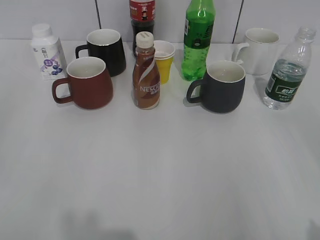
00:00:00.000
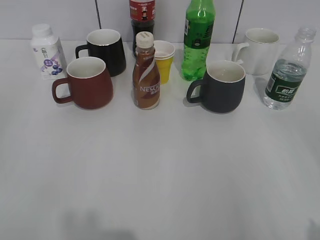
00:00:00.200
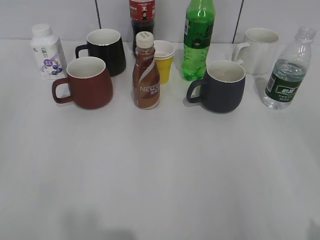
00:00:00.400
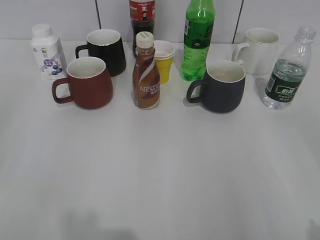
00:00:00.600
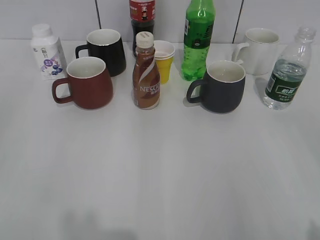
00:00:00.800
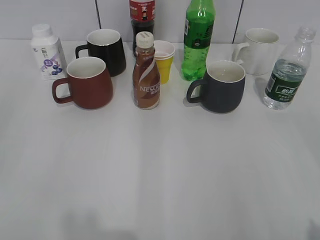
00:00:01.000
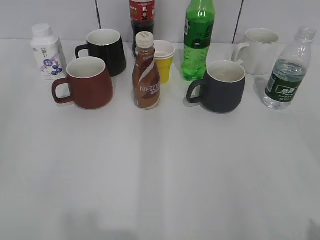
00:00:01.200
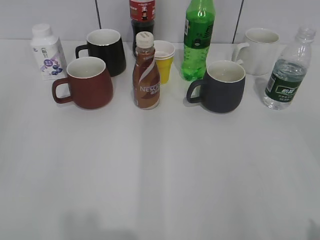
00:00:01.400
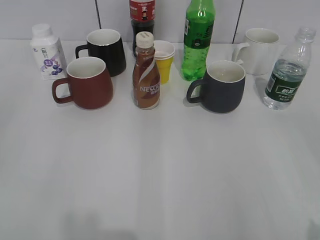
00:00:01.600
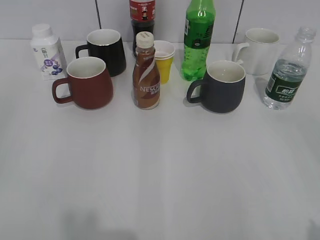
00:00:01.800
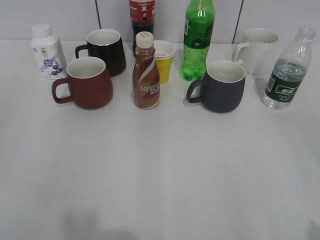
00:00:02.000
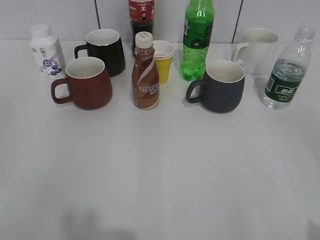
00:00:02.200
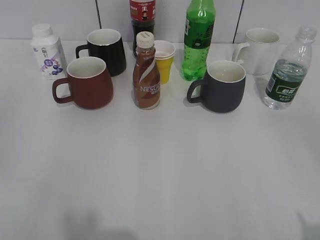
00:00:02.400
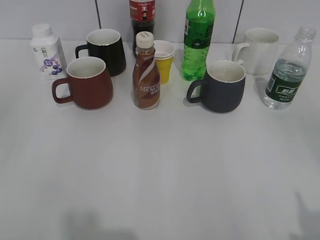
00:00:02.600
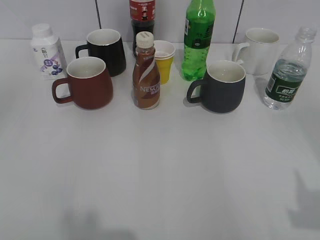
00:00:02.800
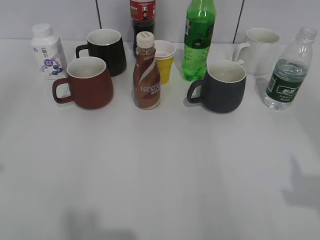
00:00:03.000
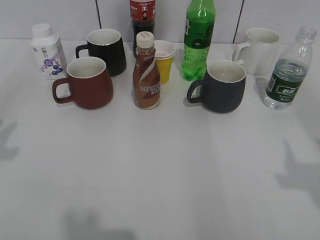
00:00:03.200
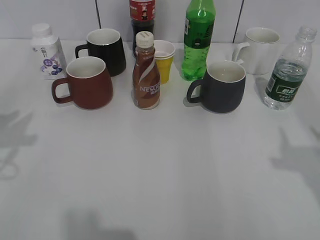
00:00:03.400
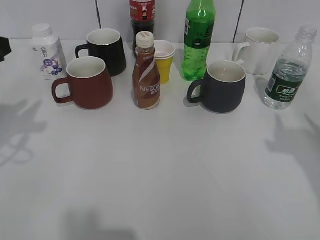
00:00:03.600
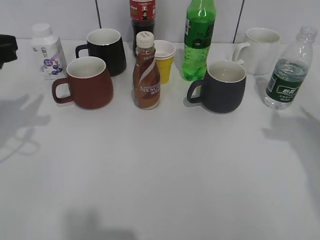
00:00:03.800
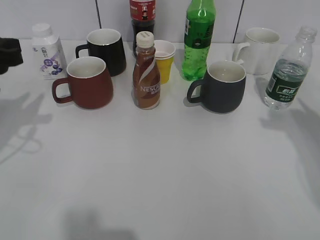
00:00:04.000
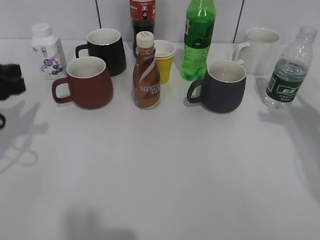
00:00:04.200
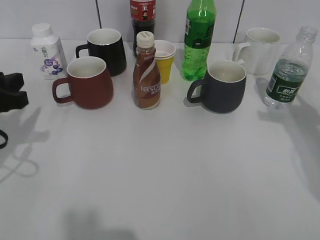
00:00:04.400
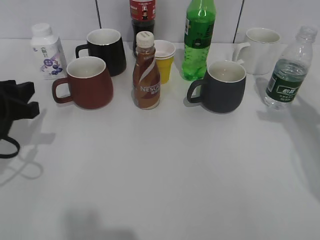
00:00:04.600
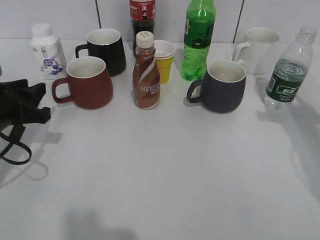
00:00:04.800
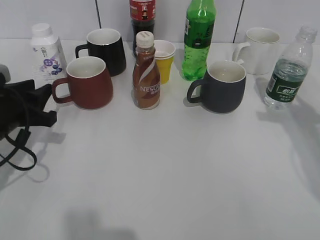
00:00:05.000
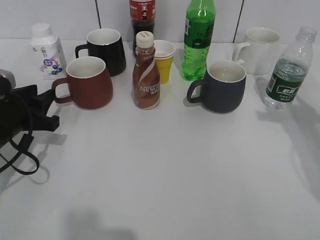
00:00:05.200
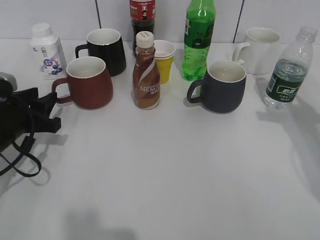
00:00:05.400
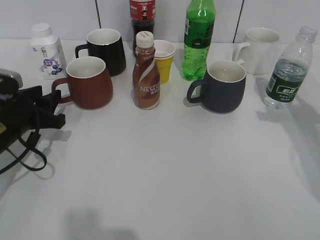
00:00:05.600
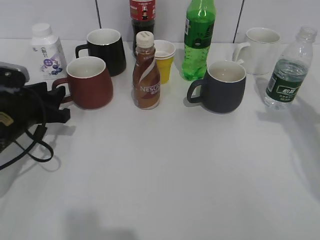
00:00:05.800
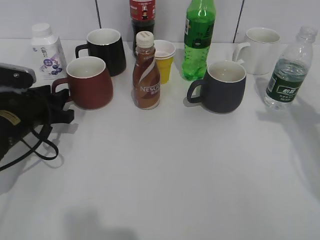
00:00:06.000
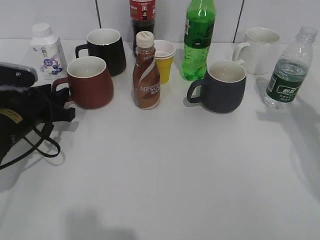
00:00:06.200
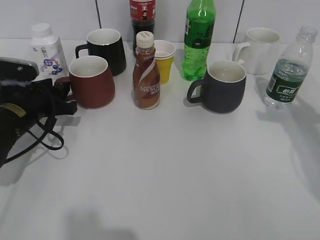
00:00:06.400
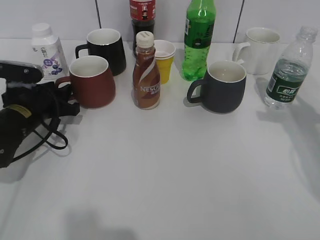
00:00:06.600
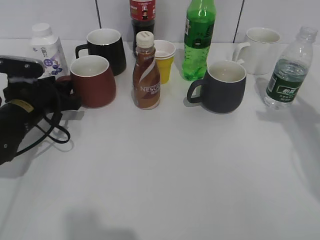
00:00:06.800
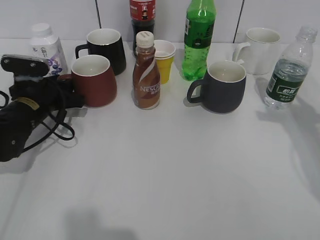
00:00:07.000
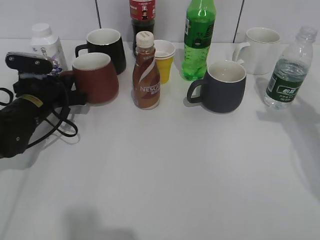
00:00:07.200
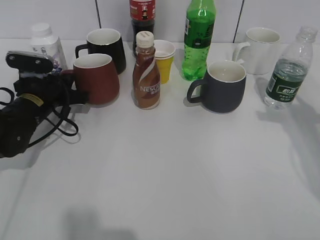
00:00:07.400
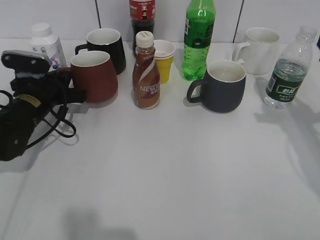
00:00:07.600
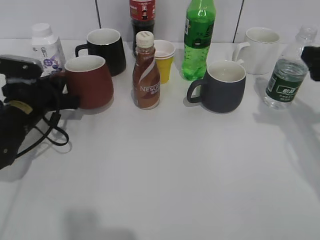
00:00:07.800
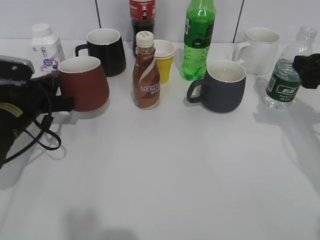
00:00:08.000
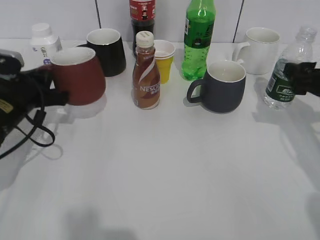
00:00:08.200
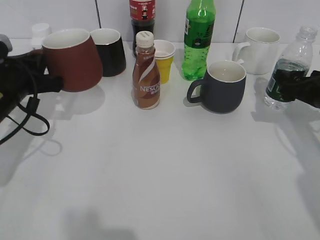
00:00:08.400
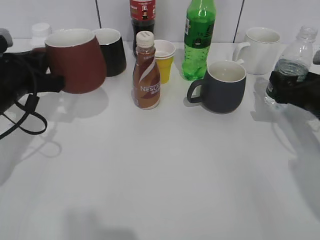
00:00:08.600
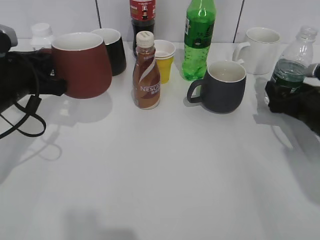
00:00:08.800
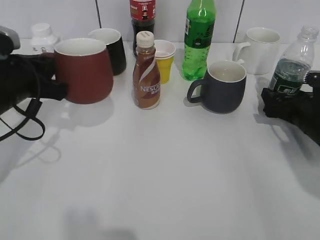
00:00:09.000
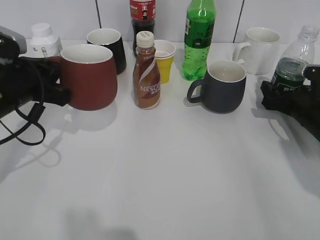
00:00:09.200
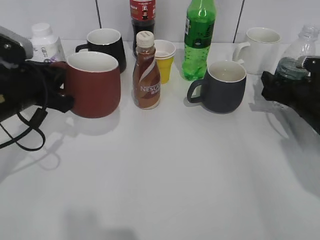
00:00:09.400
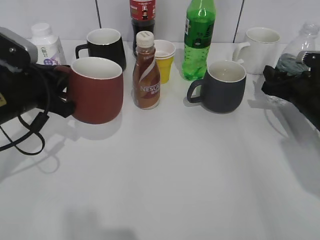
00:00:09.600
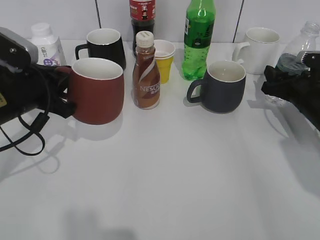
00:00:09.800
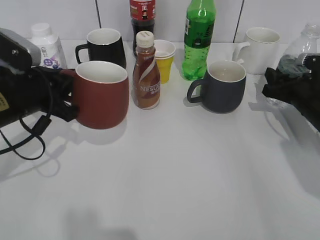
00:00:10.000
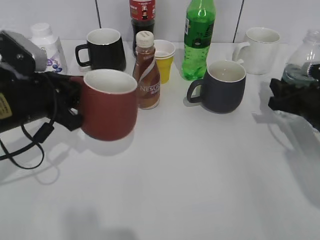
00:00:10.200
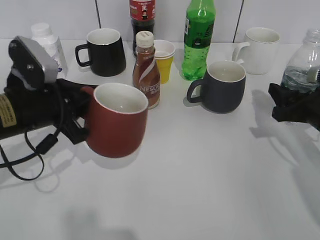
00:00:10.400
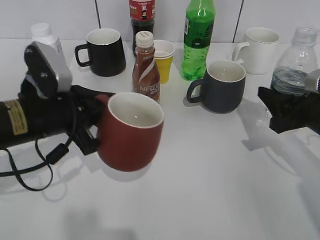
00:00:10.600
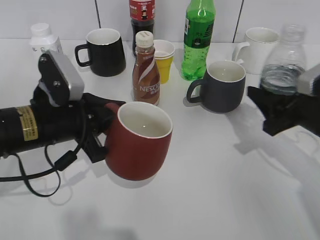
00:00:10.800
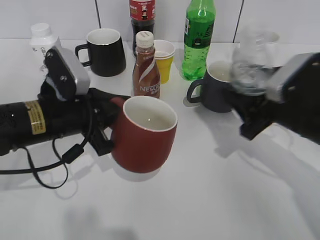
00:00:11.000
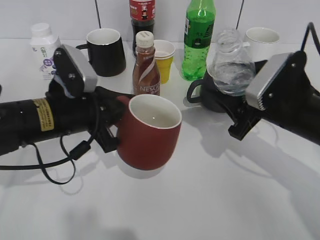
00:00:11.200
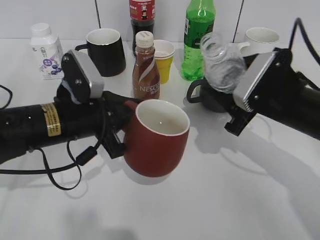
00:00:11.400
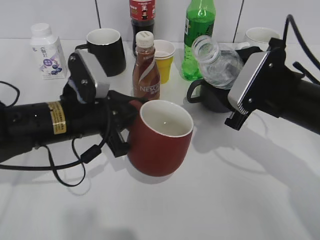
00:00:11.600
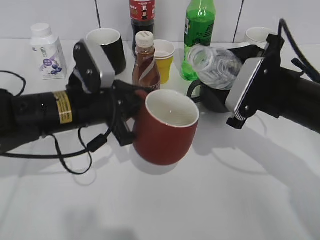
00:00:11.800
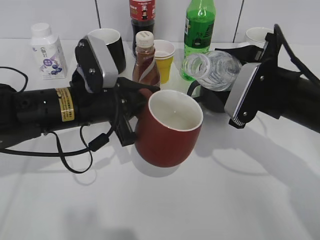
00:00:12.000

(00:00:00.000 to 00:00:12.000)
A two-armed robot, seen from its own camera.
Step, 00:00:02.000 - 00:00:07.000: Grasp the red cup with left gripper.
Step, 00:00:07.400 - 00:00:08.600: Lift the red cup with left gripper.
Step, 00:00:08.800 - 00:00:09.400: Grasp the bottle with water with right gripper.
00:00:01.600 - 00:00:03.000: The right gripper moves forward, approximately 5 cm.
00:00:03.000 - 00:00:04.400: The right gripper moves forward, approximately 20 cm. Meanwhile the left gripper moves downward and forward, roughly 20 cm.
00:00:04.400 - 00:00:06.000: The left gripper moves downward and forward, about 10 cm.
00:00:06.000 - 00:00:07.600: The left gripper moves some 5 cm, and closes.
00:00:07.600 - 00:00:09.000: The right gripper shifts approximately 15 cm downward, and opens. Meanwhile the left gripper goes roughly 10 cm upward and backward.
00:00:09.000 - 00:00:10.400: The right gripper goes approximately 5 cm upward, and closes its fingers.
00:00:10.400 - 00:00:12.000: The right gripper heads to the left, covering about 10 cm. The left gripper goes approximately 5 cm to the right.

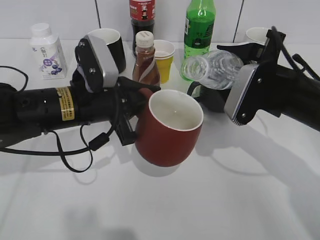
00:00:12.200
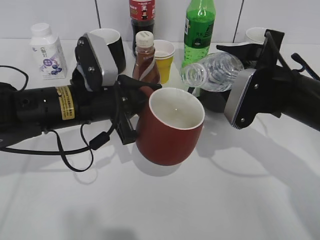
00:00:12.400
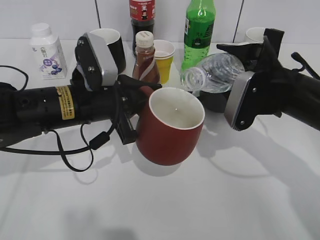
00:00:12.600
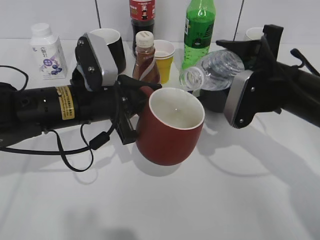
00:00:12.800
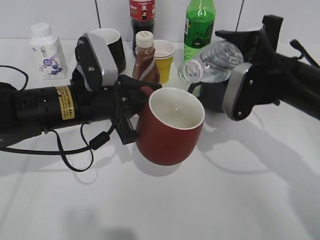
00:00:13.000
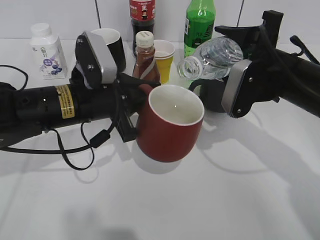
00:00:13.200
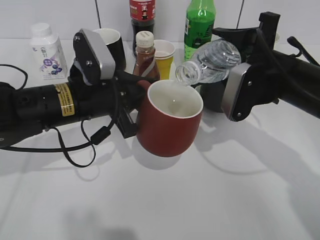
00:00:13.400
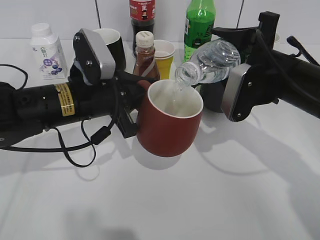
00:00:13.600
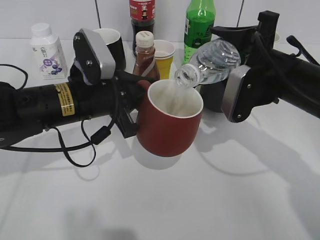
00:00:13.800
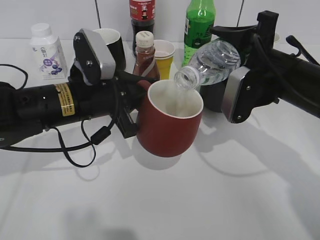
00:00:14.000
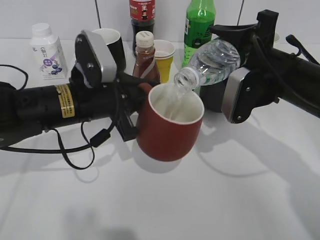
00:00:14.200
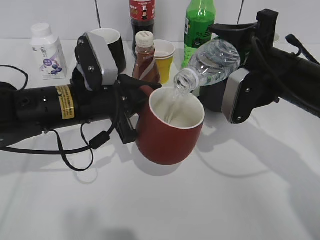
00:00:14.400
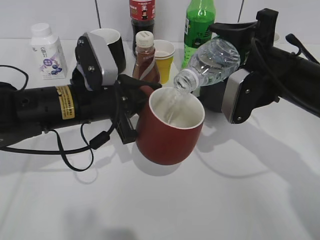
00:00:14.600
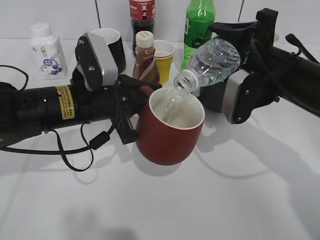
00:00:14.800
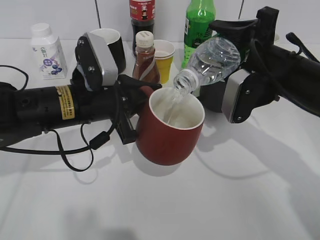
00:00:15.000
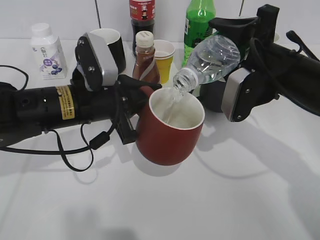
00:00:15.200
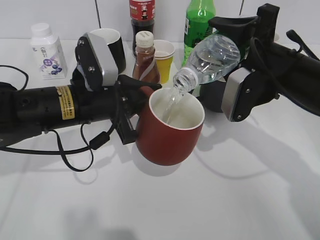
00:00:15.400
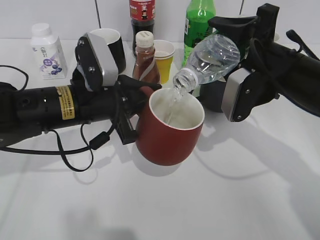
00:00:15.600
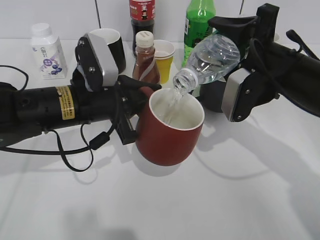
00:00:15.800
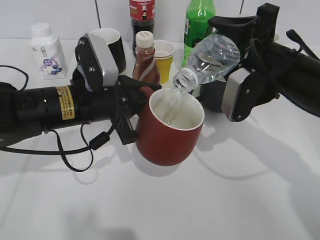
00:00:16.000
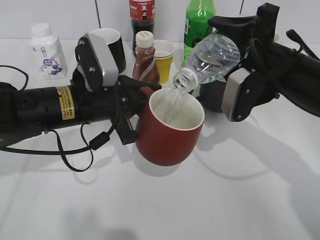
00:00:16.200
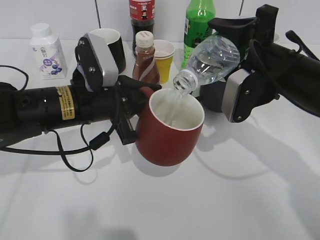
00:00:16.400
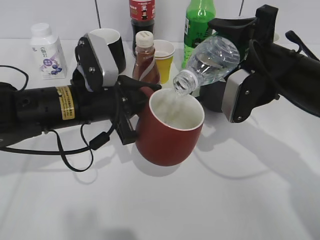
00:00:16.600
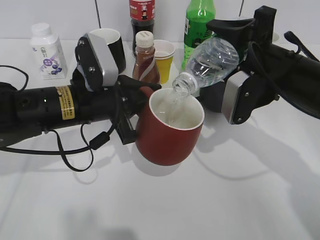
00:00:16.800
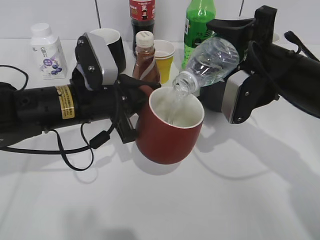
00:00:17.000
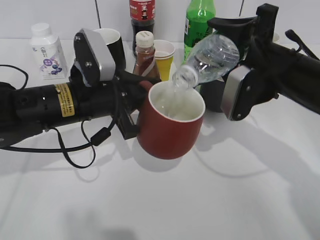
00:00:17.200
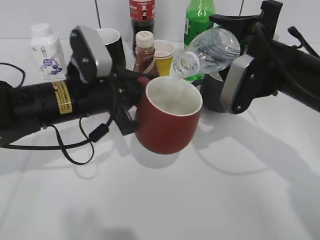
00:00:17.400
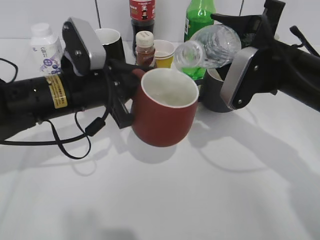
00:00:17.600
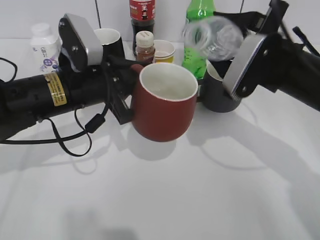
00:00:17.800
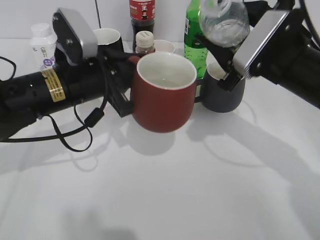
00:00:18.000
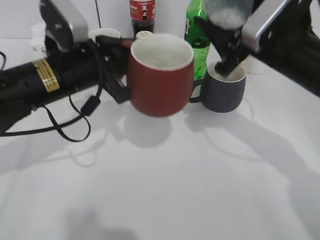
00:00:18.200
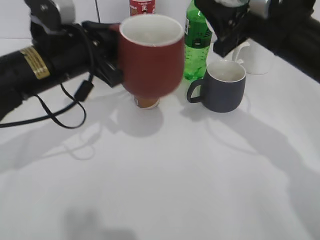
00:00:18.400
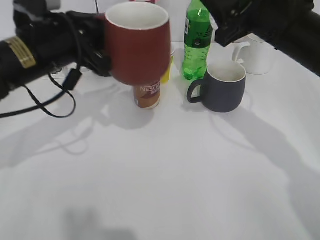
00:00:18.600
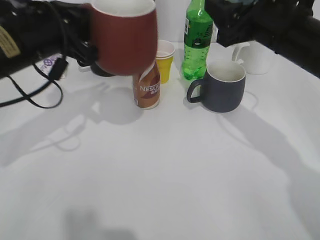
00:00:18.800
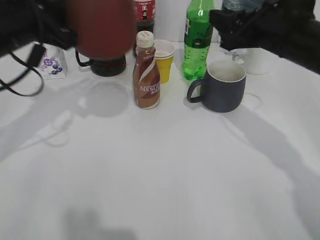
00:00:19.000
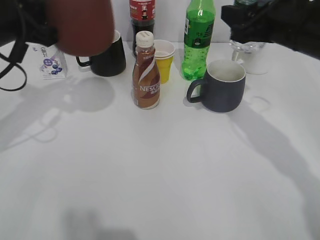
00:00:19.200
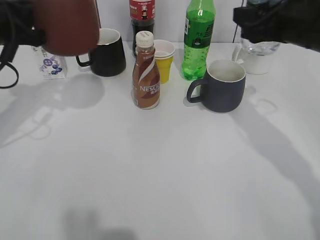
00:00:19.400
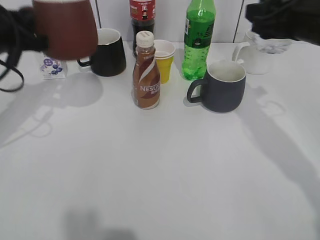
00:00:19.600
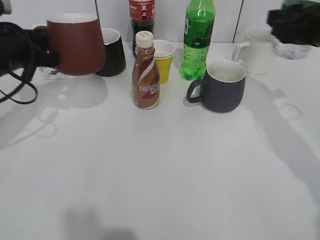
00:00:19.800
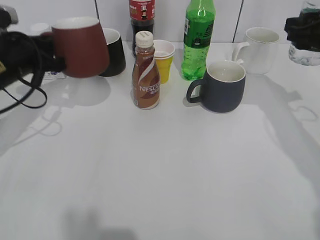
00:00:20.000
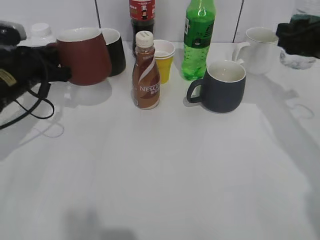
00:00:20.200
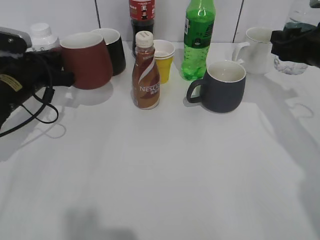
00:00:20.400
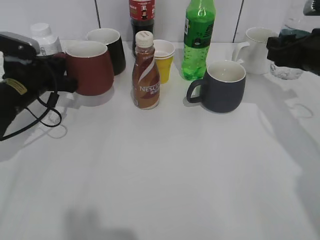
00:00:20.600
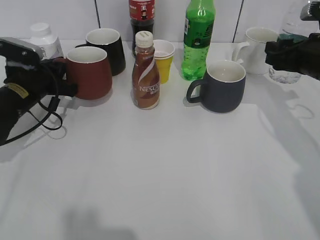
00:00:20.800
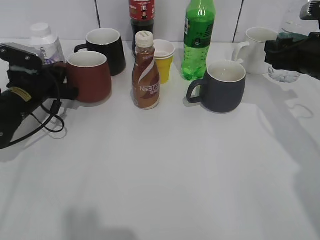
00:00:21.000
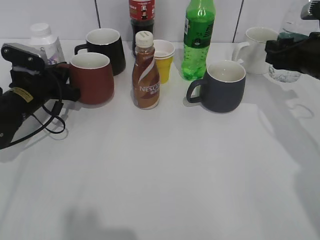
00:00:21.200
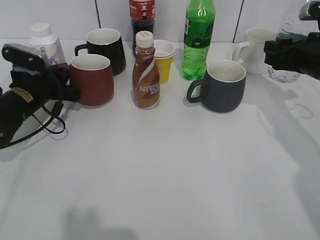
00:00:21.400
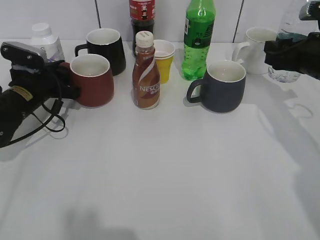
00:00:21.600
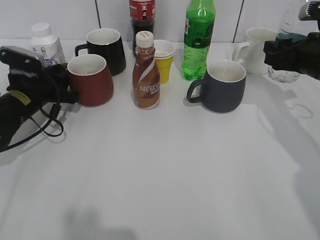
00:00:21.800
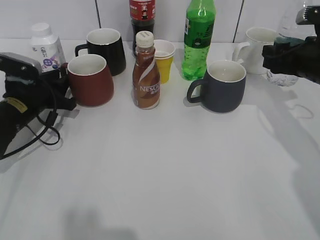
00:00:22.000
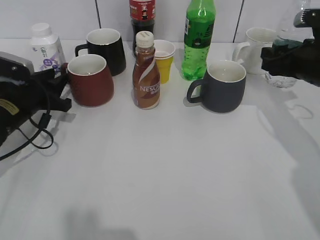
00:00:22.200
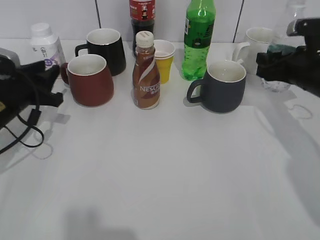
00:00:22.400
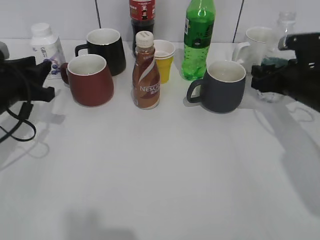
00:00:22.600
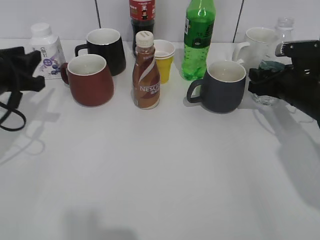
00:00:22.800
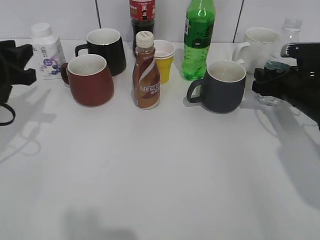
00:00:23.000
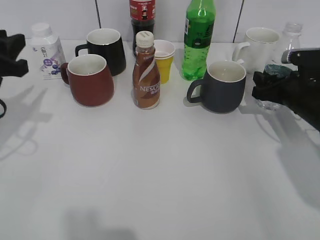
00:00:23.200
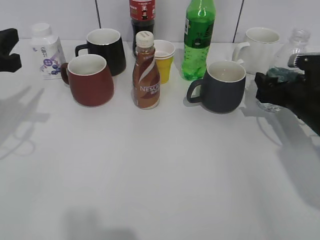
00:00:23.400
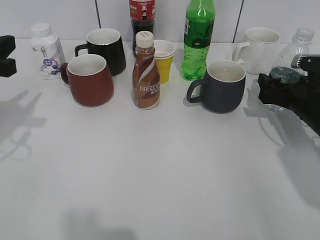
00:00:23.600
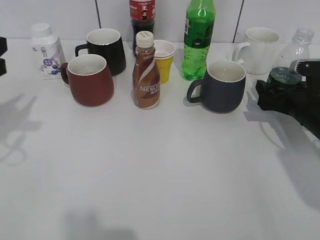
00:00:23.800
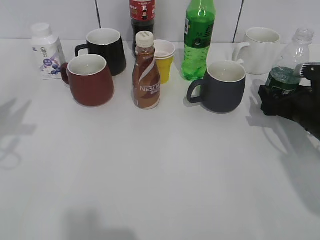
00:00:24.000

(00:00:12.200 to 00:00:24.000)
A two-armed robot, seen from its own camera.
Step, 00:00:12.200 - 00:00:17.400: Pour the water from bottle to cup with right gripper.
Step, 00:00:17.600 - 00:00:21.600: Place the red cup on the table with left gripper.
00:00:12.200 - 00:00:13.600: There are only small adjustments of the grippers.
00:00:13.600 - 00:00:15.200: The grippers make only small movements.
00:00:15.200 - 00:00:16.600: The two grippers keep their place.
00:00:18.200 - 00:00:19.600: The right gripper shifts by about 5 cm; the left gripper shifts some 10 cm to the left.
00:00:19.600 - 00:00:21.000: The right gripper moves downward, roughly 10 cm. The left gripper goes about 15 cm downward and forward.
00:00:21.000 - 00:00:22.600: The right gripper goes roughly 5 cm downward. Meanwhile the left gripper moves backward and upward, roughly 10 cm, and opens its fingers.
00:00:22.600 - 00:00:24.000: The right gripper goes some 5 cm backward, and opens up. Meanwhile the left gripper heads upward and backward, covering some 15 cm.
